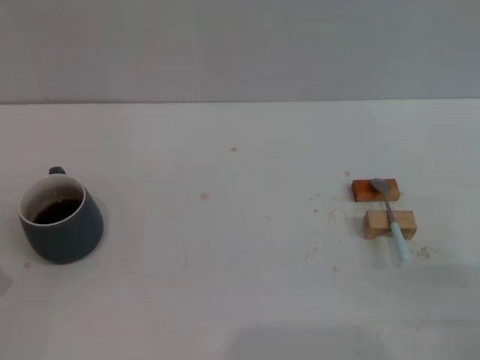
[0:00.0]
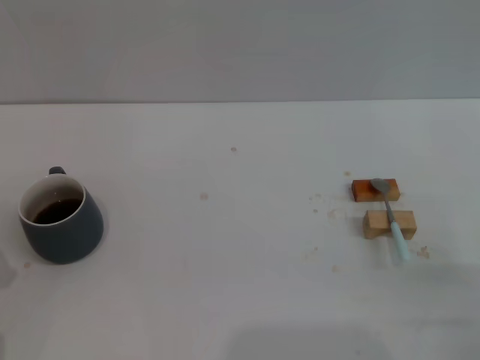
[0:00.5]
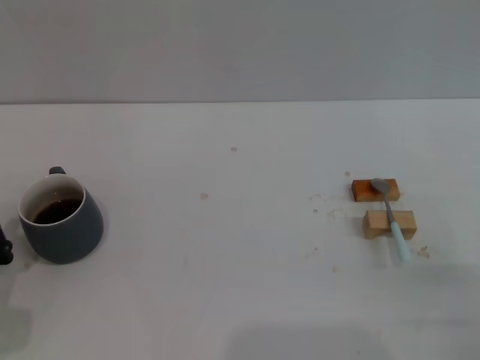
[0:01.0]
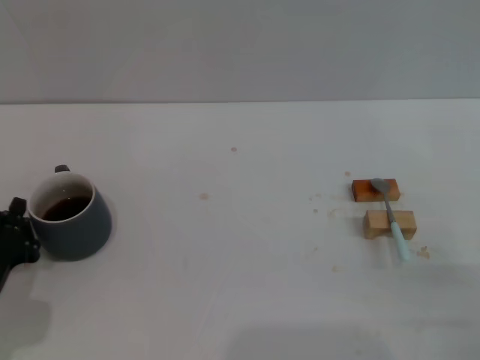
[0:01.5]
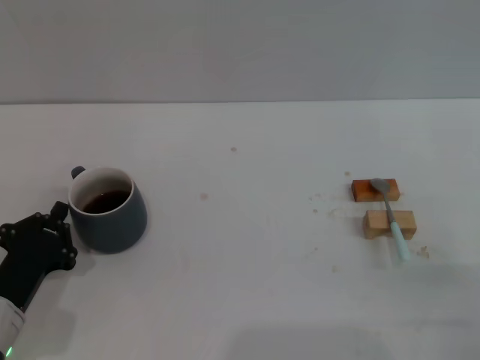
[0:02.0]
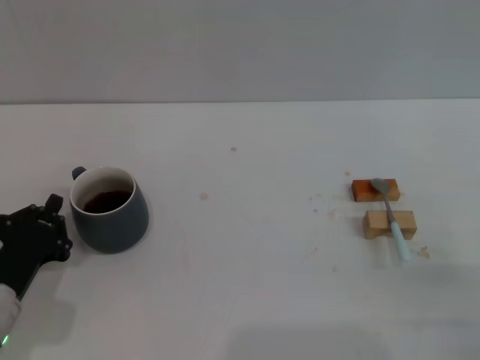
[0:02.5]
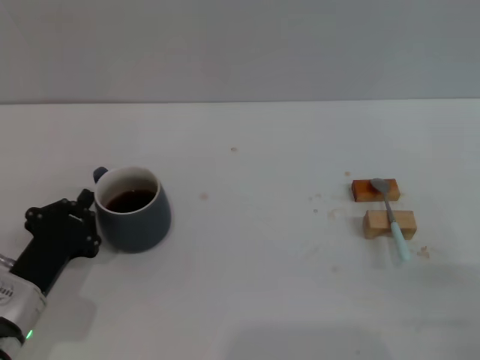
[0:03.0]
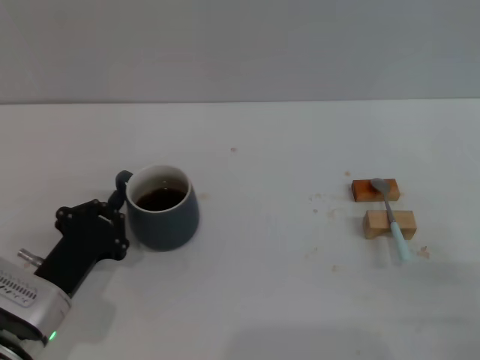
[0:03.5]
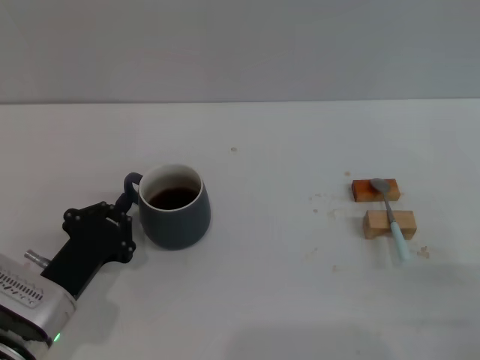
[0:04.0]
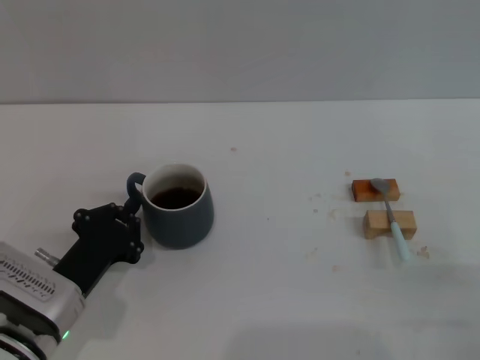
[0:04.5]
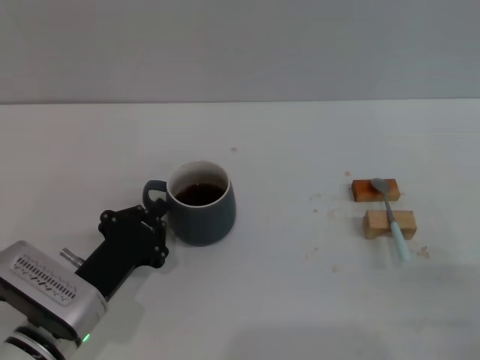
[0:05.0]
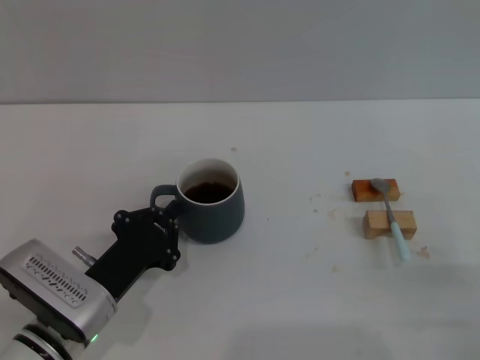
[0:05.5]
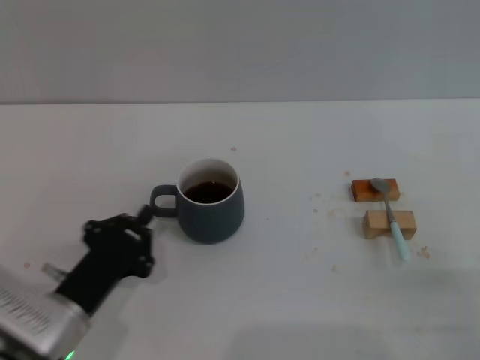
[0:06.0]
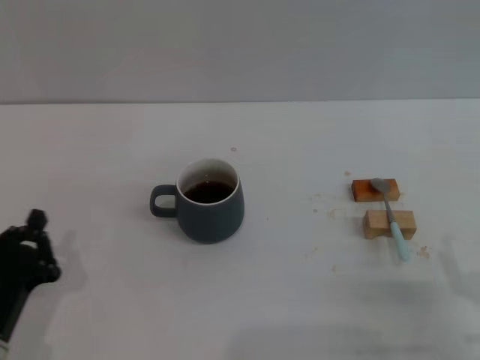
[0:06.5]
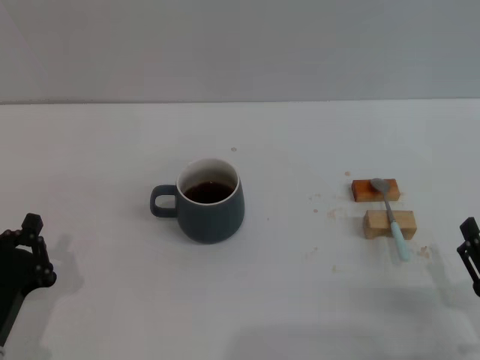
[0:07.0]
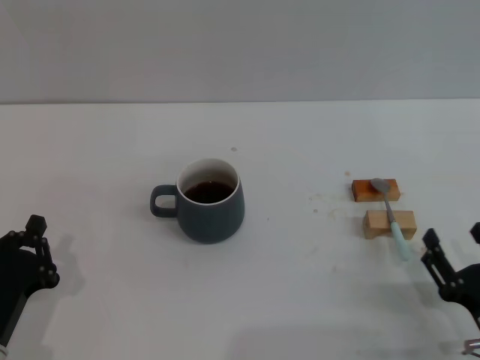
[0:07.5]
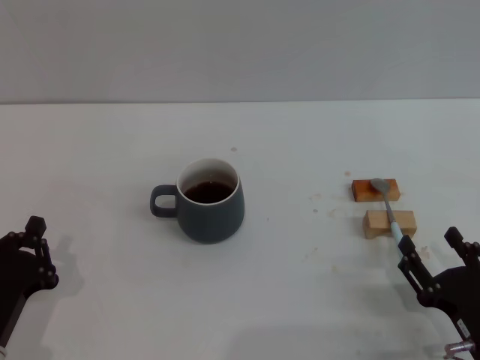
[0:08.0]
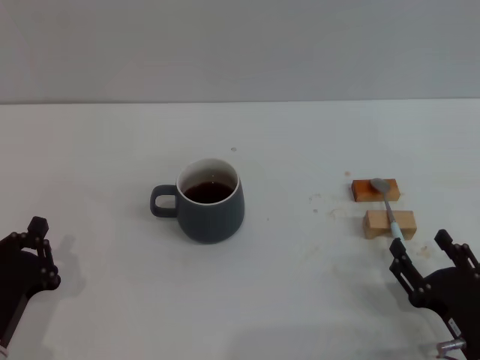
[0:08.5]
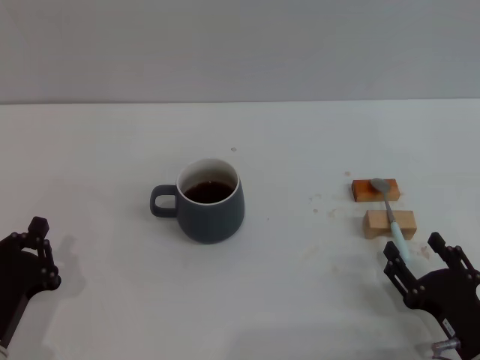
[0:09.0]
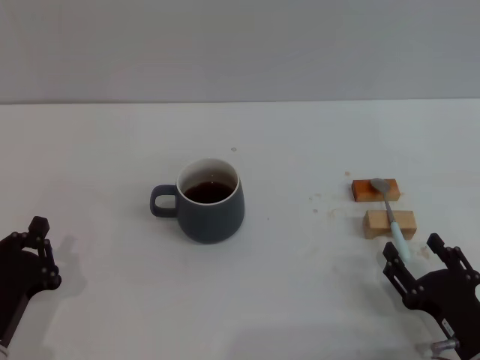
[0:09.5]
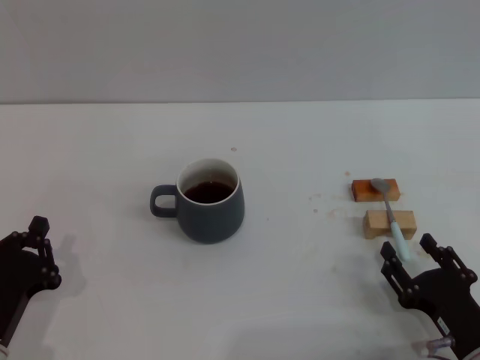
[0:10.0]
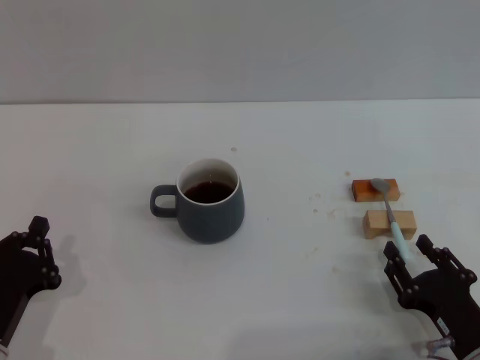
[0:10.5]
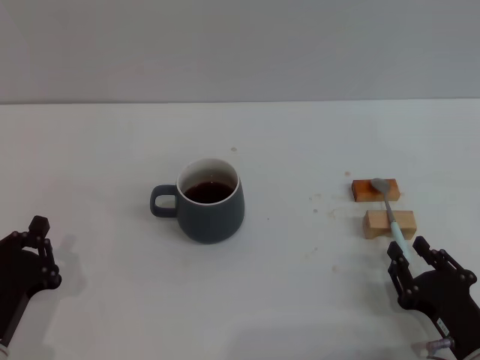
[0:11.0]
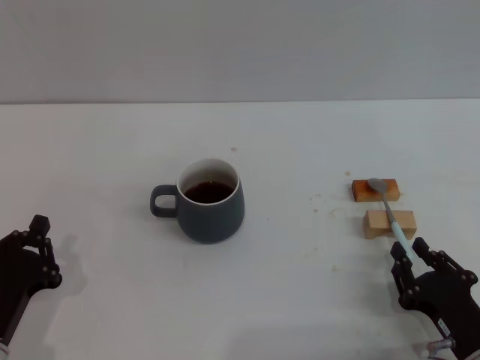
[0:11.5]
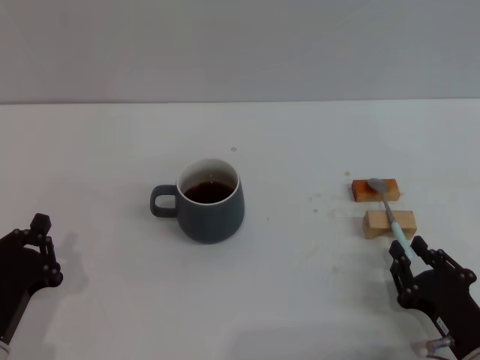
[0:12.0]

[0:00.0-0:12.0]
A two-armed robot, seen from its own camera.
Task of the whole recording: Move the grey cup to the center, lift the blue spoon, stir it three times in the cup, and put the spoon into the cup.
Step, 0:00.0 to 0:05.5: Move the cup with coffee to the center of view with the left gripper.
0:00.0 to 0:02.0: The left gripper goes some 5 cm forward.
0:02.0 to 0:04.0: There are only small adjustments of the grippers.
0:04.0 to 0:06.0: There are only small adjustments of the grippers.
0:06.0 to 0:08.0: The right gripper is displaced to the left by some 5 cm. The left gripper goes some 10 cm to the left and backward.
0:08.0 to 0:10.0: The grippers stay close to where they were, moving slightly.
0:10.0 to 0:12.0: The right gripper closes up.

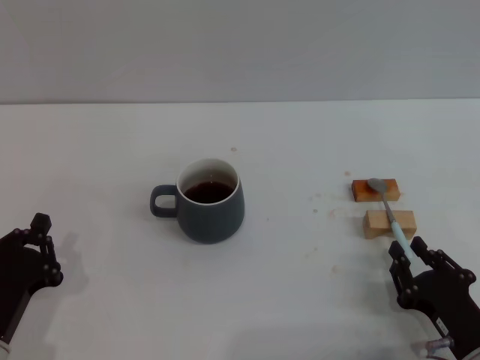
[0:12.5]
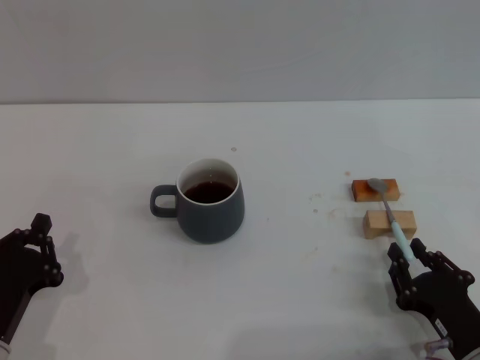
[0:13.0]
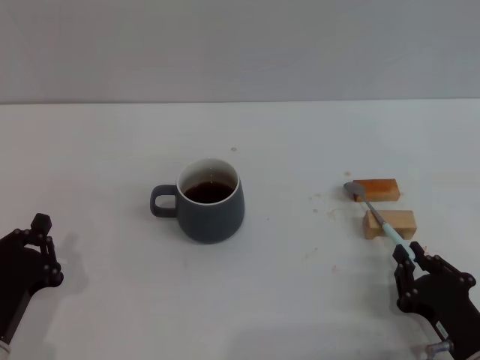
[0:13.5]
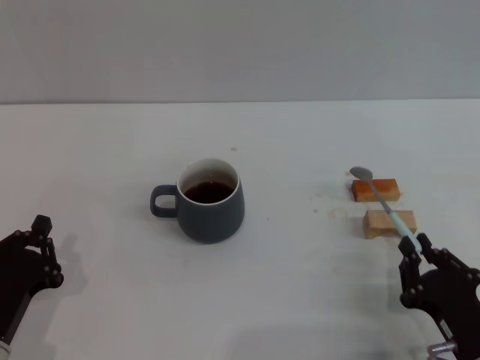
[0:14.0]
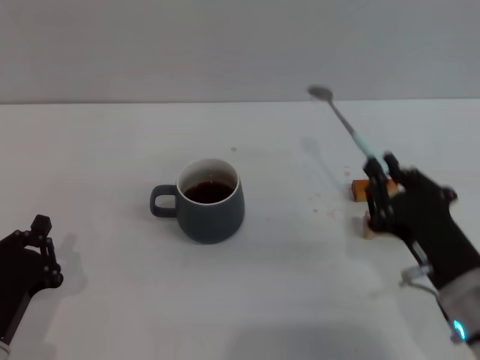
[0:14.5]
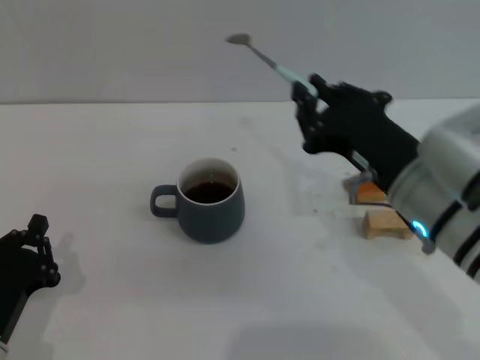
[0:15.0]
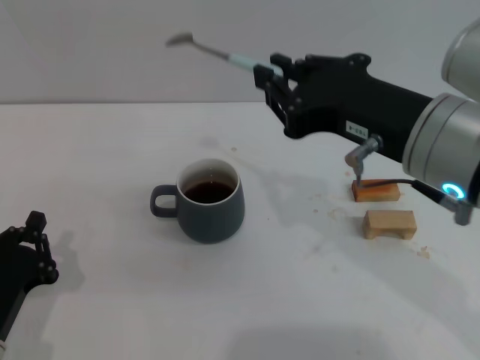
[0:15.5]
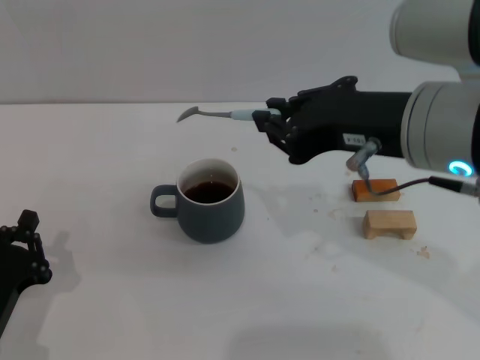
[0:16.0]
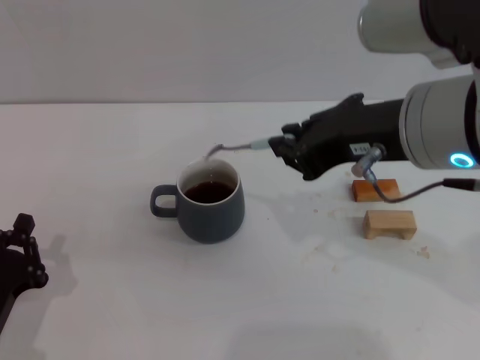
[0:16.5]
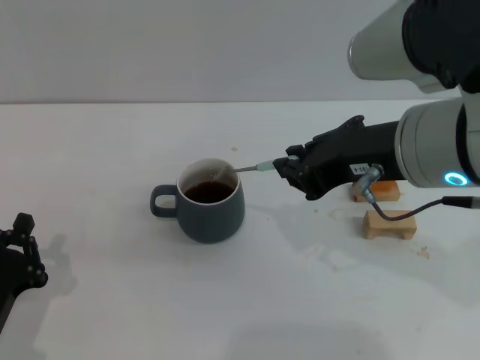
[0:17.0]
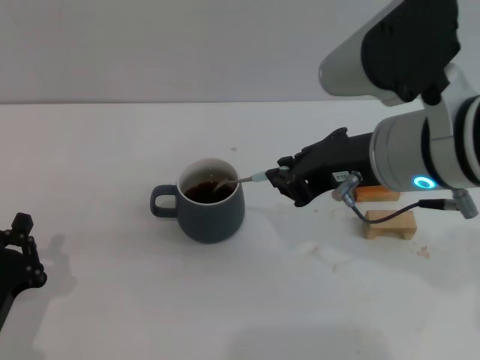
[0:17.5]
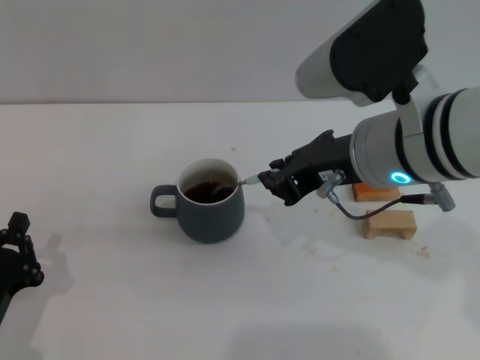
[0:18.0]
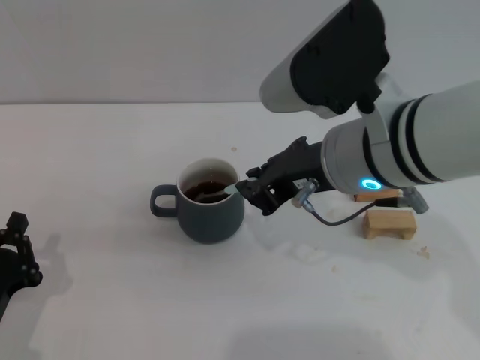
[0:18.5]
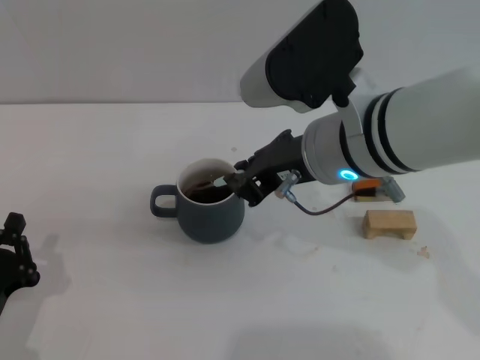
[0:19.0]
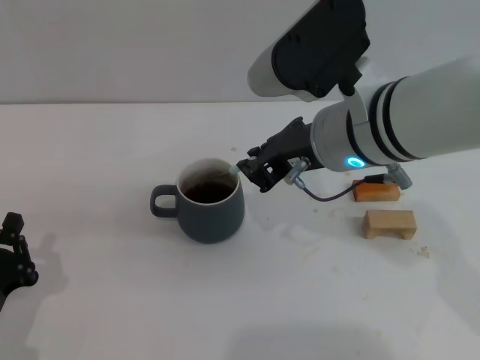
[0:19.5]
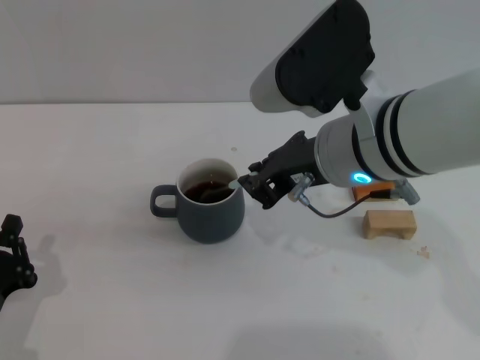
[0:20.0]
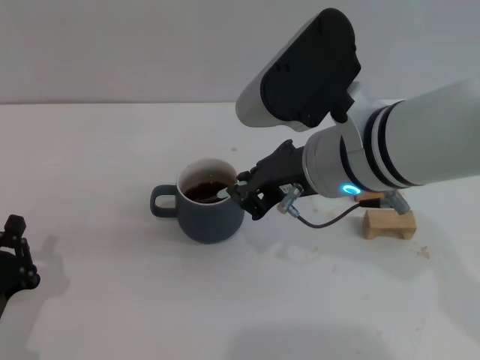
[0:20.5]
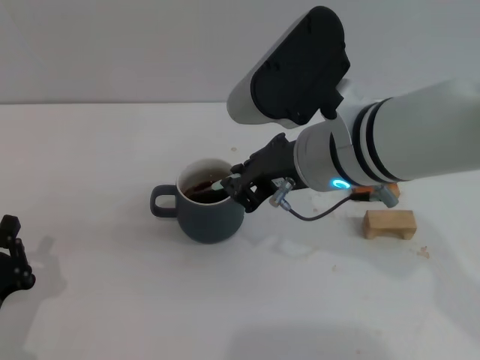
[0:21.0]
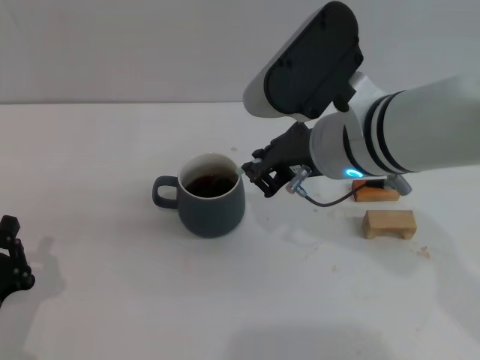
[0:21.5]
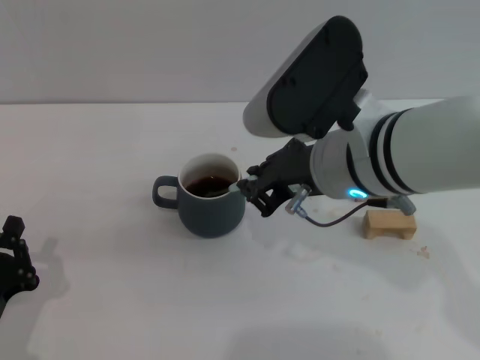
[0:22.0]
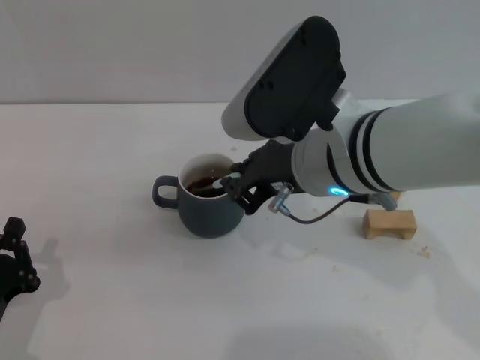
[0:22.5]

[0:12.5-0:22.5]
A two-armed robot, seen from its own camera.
Task of the whole recording: Move the grey cup to the center, lift the blue spoon, stir it three times in the cup, and put the spoon into the cup.
0:12.5 to 0:14.5: The right gripper is displaced upward by roughly 10 cm.
0:14.5 to 0:16.5: The right gripper moves upward, some 20 cm.
0:16.5 to 0:18.5: The right gripper is displaced downward by about 5 cm.
0:18.5 to 0:22.5: The grippers stay close to where they were, moving slightly.

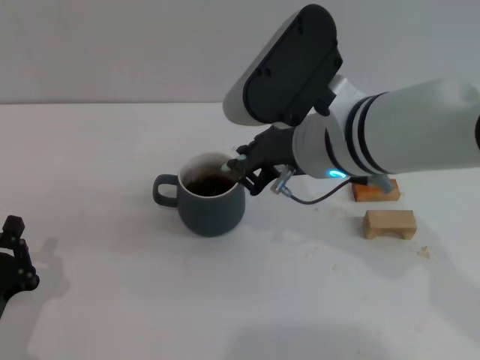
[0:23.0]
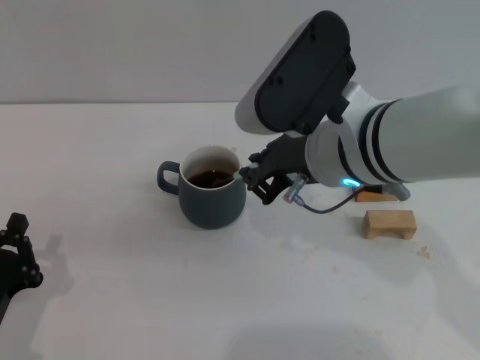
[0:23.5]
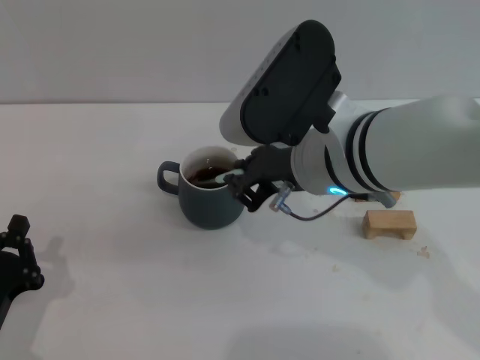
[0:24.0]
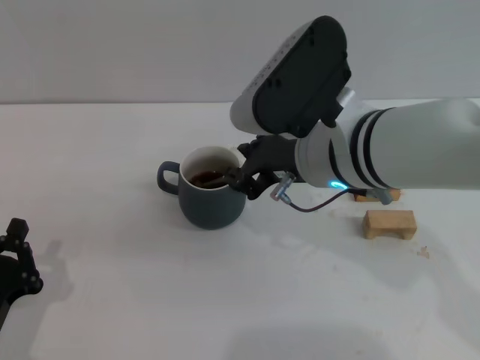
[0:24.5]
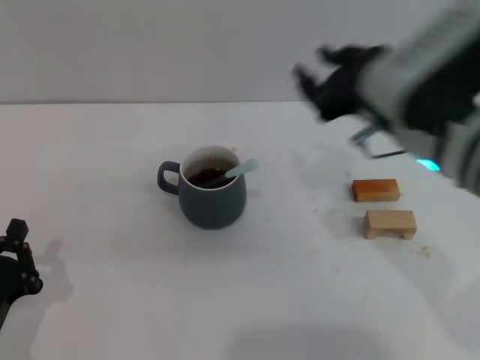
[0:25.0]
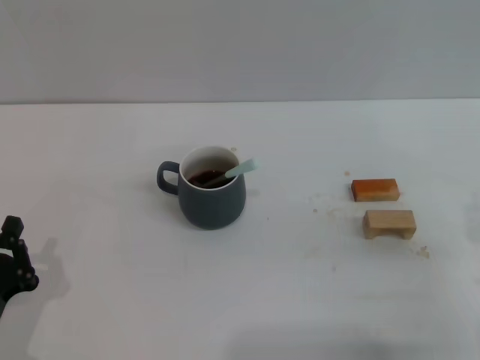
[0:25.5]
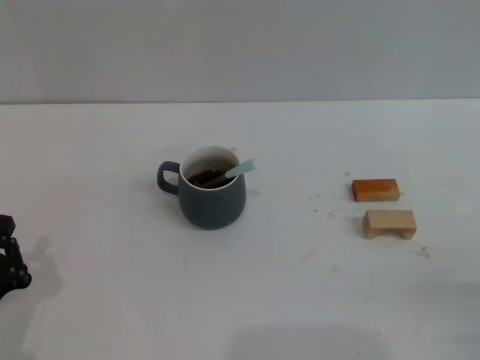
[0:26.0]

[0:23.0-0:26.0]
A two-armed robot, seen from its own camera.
Task of the whole recording: Move the grey cup to the center, lift the blue spoon, stir it three times in the cup, and put the spoon into the cup.
0:23.0 to 0:24.5: There are only small adjustments of the grippers.
0:24.5 to 0:26.0: The right gripper goes roughly 35 cm to the right, downward and backward, and opens its fingers.
